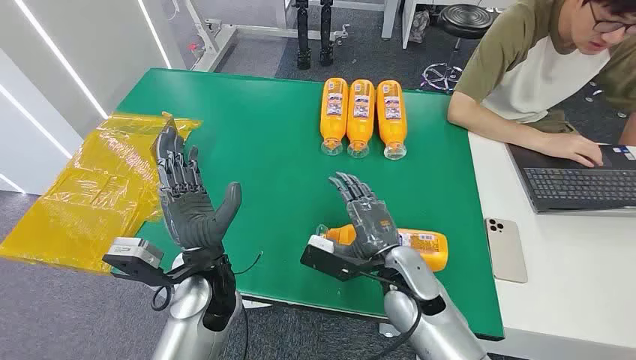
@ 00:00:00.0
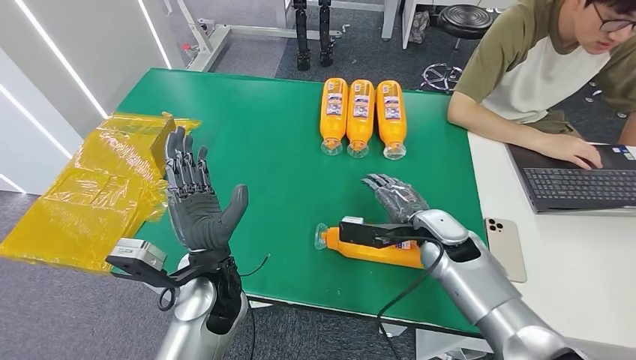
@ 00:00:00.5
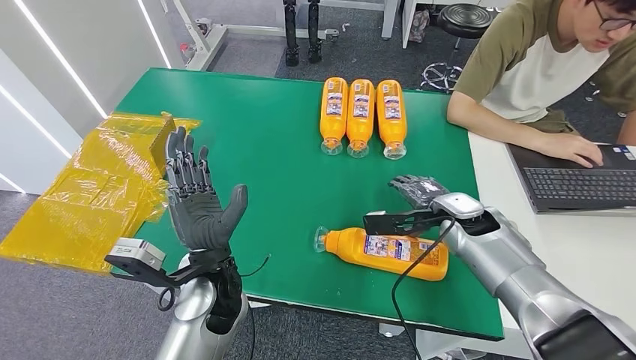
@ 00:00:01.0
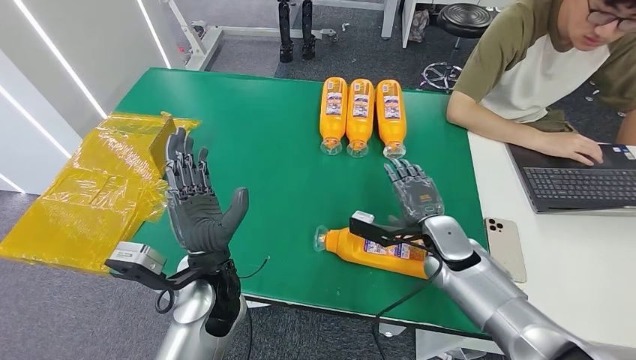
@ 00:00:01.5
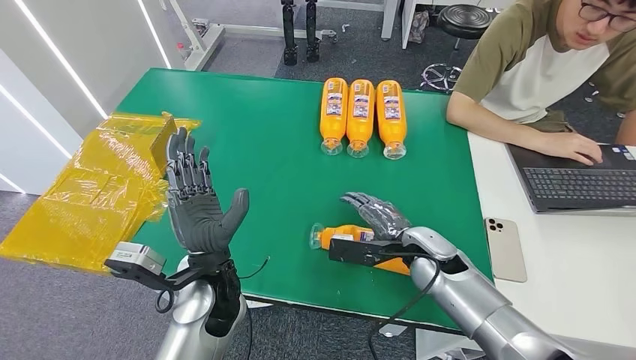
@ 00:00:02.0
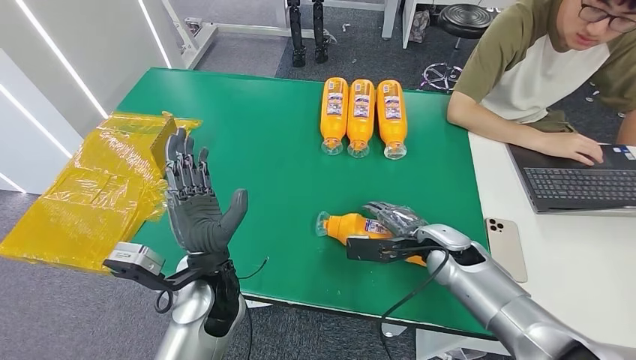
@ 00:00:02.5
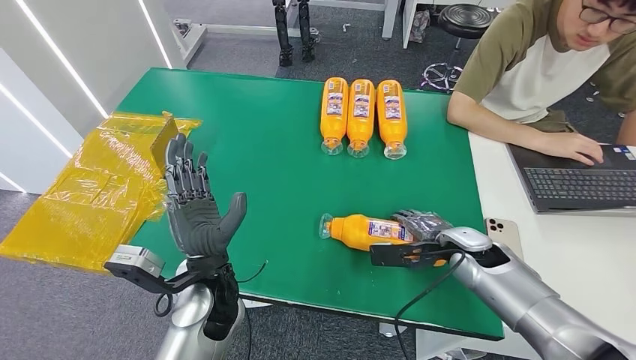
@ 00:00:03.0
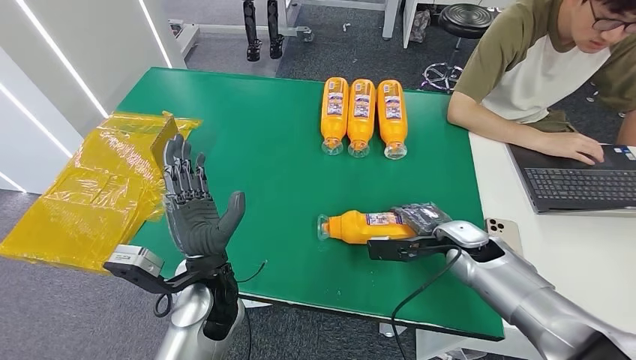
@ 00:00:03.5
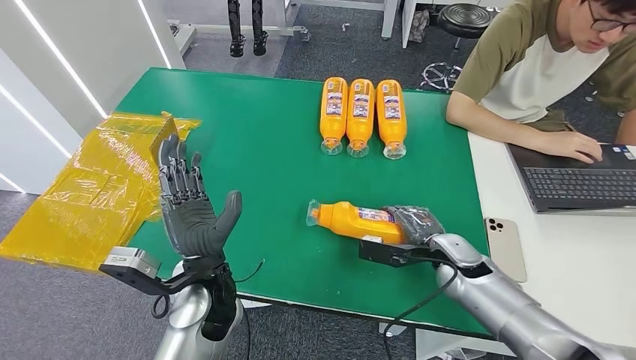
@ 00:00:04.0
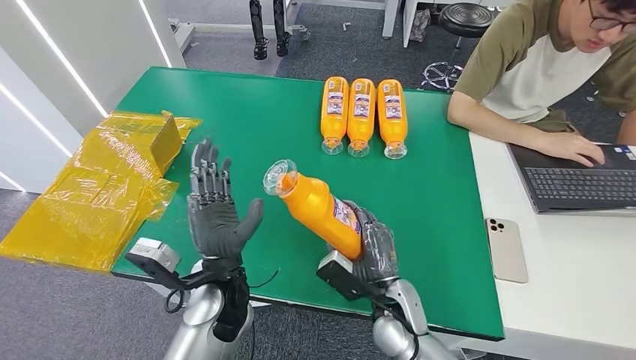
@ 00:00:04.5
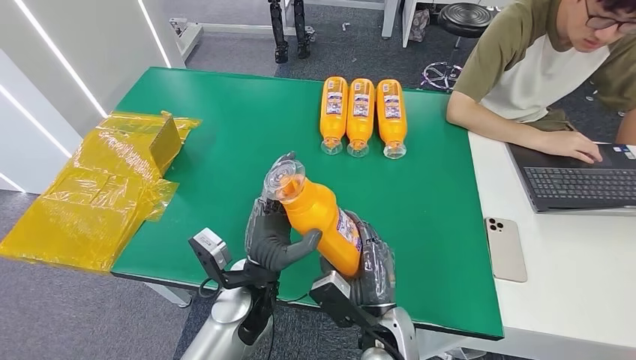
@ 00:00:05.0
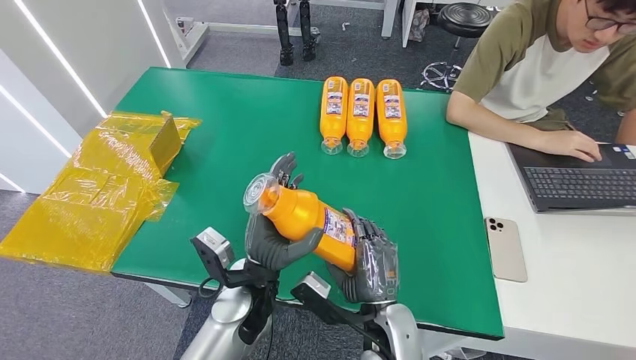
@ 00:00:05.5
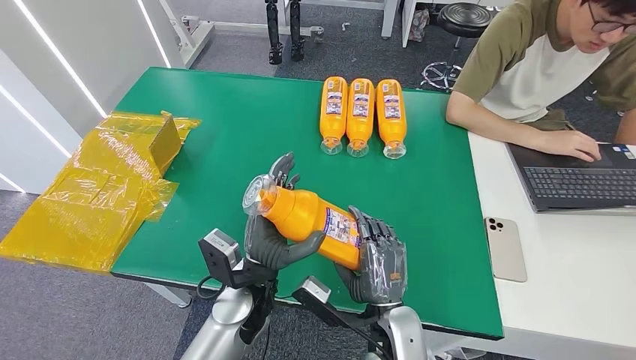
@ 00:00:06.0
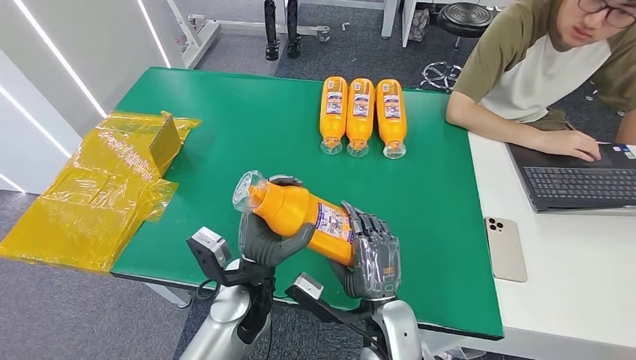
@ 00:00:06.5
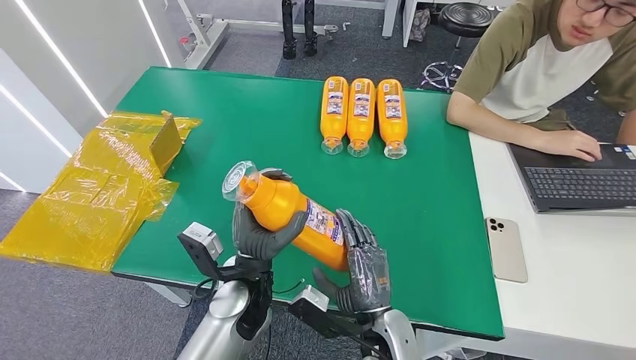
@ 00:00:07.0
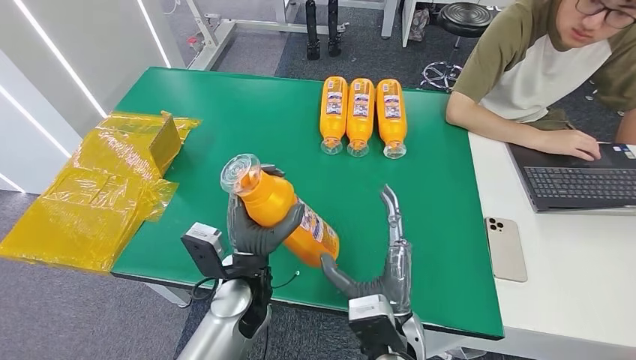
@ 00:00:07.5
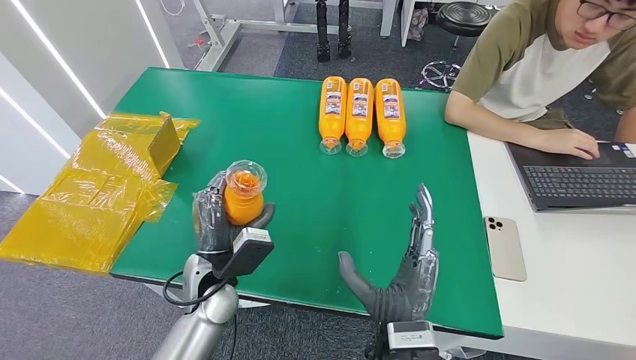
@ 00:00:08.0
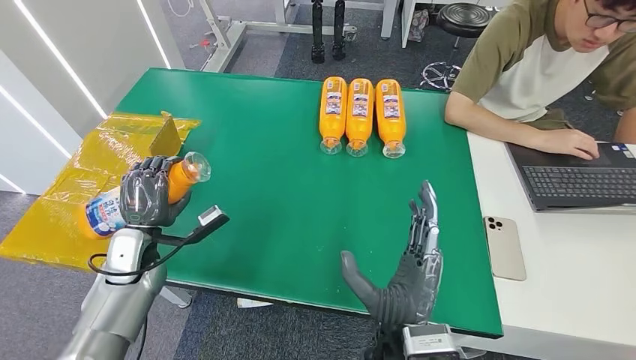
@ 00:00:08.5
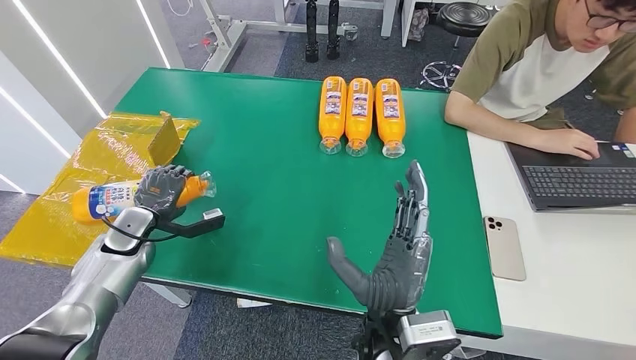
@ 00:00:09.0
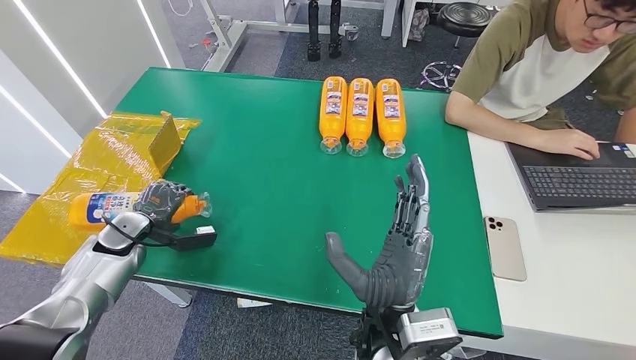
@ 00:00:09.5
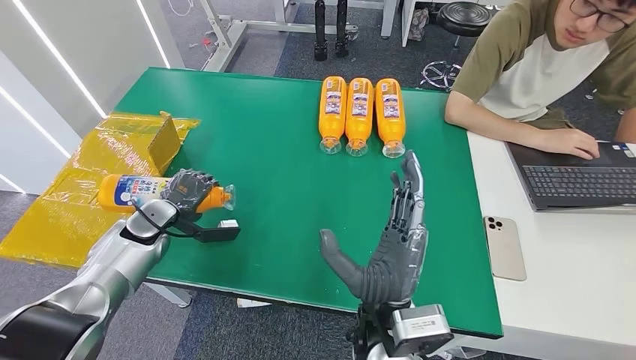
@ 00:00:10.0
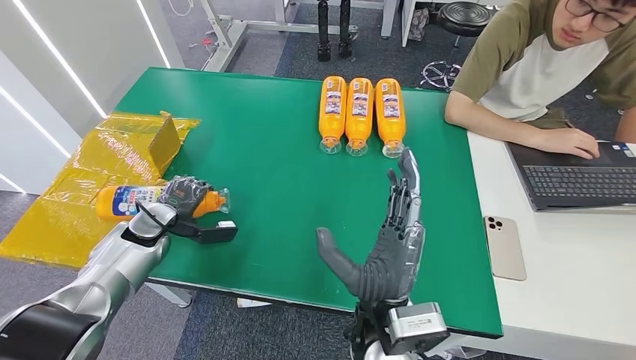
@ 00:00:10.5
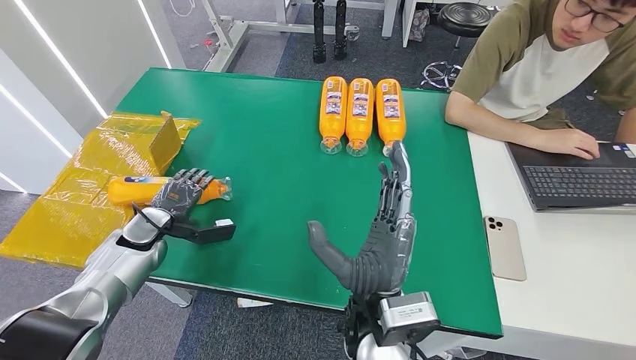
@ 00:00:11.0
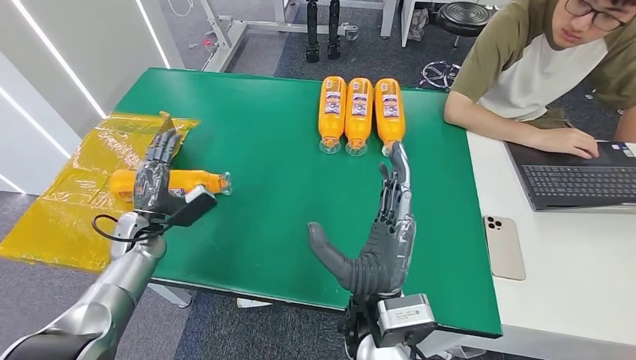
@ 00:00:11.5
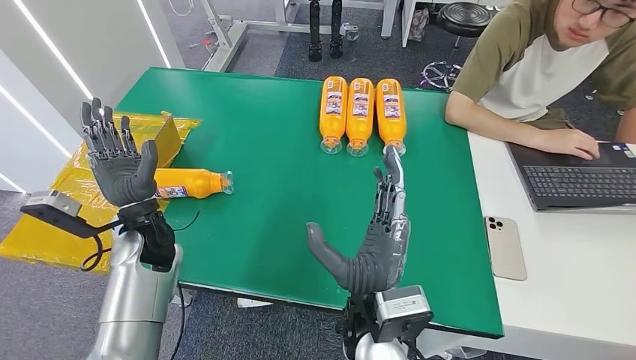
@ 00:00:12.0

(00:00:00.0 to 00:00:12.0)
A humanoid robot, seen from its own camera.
Step, 00:00:00.0 - 00:00:04.5: Pick up the bottle from the table.
Step, 00:00:05.0 - 00:00:12.0: Turn the bottle to the front side.
00:00:04.0 - 00:00:06.0: The right hand goes some 20 cm backward and to the left, while the left hand ends up approximately 5 cm from where it was.
00:00:06.0 - 00:00:08.0: The right hand moves approximately 5 cm. Meanwhile the left hand travels to the left by roughly 5 cm.
00:00:08.0 - 00:00:10.0: The right hand moves roughly 5 cm. Meanwhile the left hand goes roughly 25 cm to the left and forward.
00:00:10.0 - 00:00:12.0: The left hand moves to the right and upward, about 10 cm.
